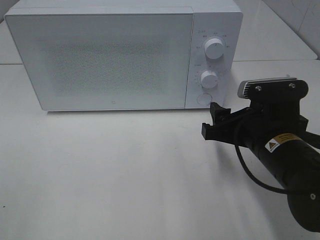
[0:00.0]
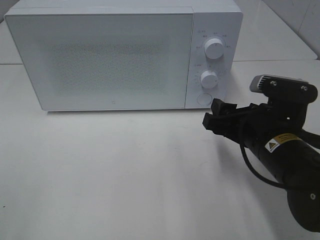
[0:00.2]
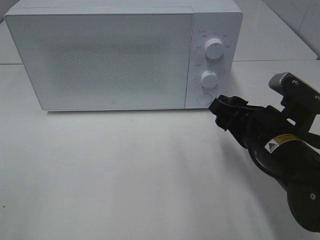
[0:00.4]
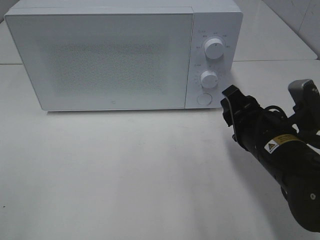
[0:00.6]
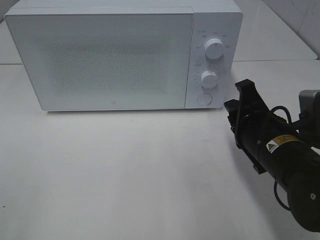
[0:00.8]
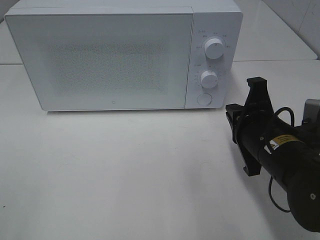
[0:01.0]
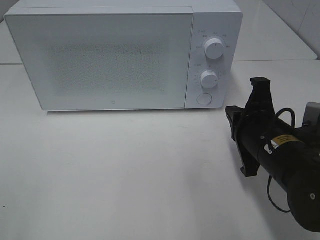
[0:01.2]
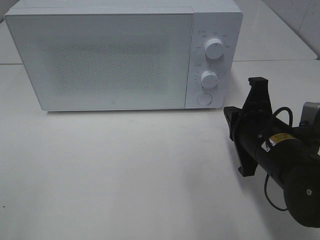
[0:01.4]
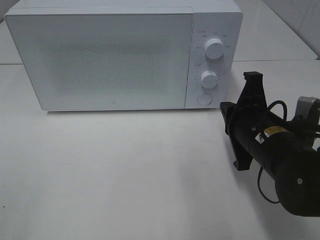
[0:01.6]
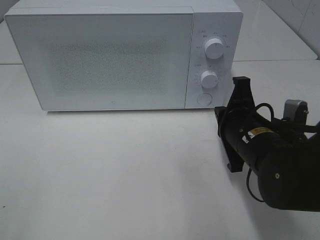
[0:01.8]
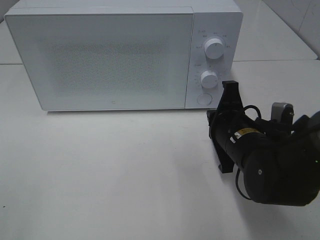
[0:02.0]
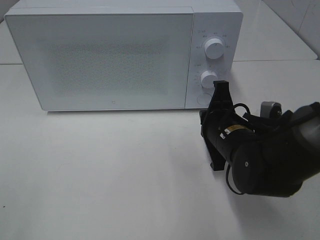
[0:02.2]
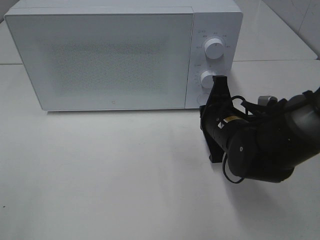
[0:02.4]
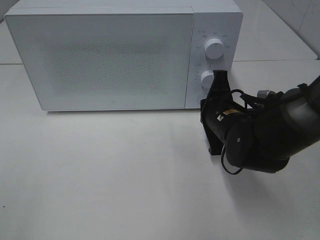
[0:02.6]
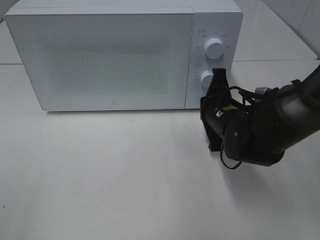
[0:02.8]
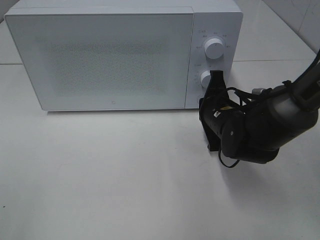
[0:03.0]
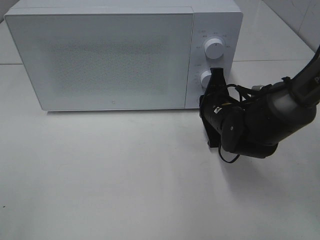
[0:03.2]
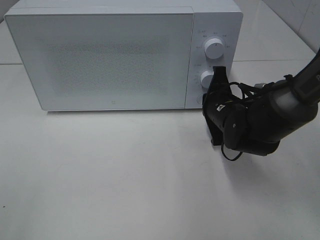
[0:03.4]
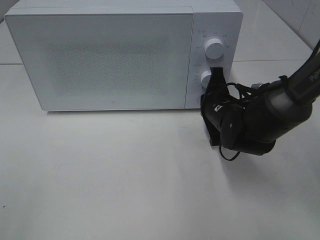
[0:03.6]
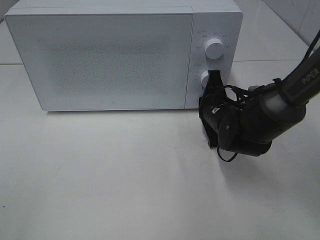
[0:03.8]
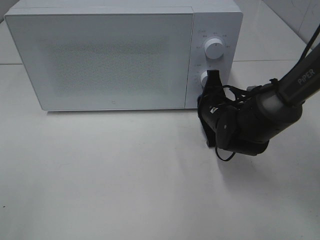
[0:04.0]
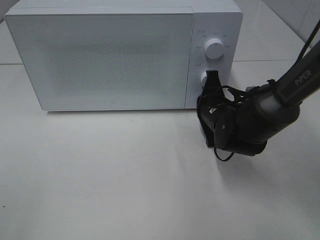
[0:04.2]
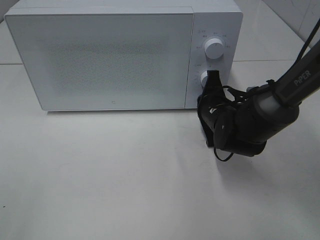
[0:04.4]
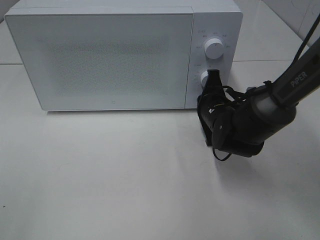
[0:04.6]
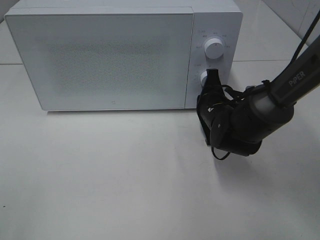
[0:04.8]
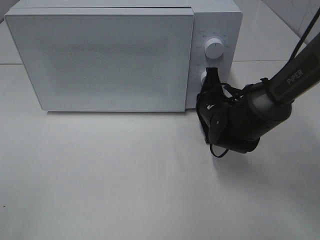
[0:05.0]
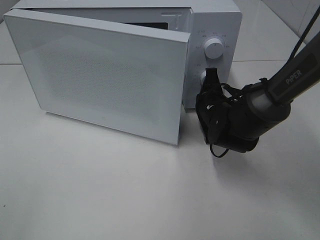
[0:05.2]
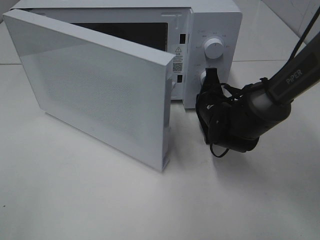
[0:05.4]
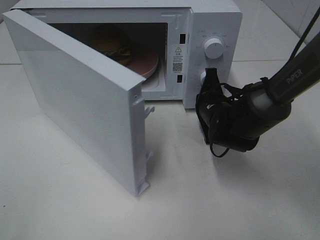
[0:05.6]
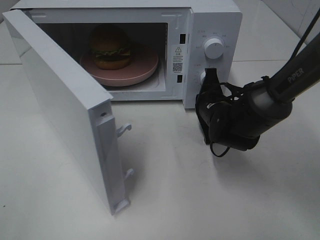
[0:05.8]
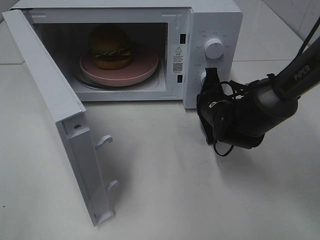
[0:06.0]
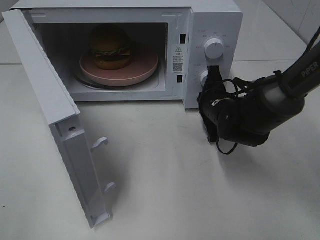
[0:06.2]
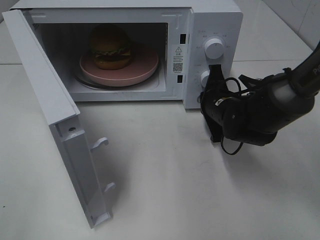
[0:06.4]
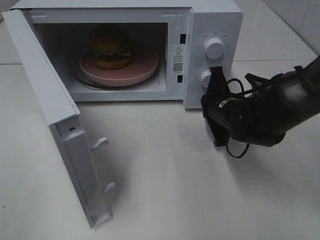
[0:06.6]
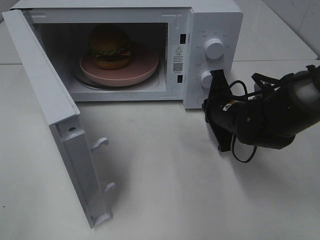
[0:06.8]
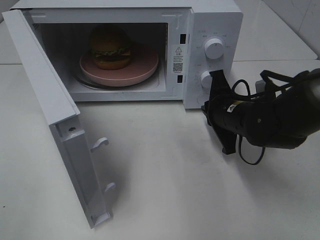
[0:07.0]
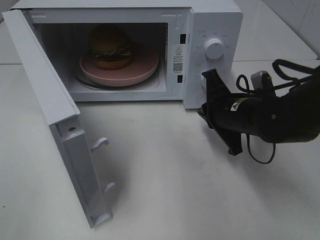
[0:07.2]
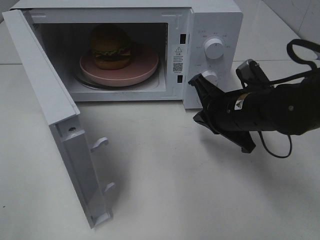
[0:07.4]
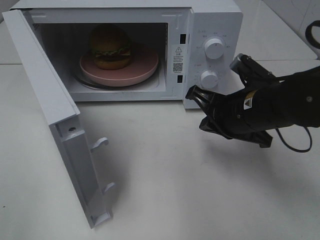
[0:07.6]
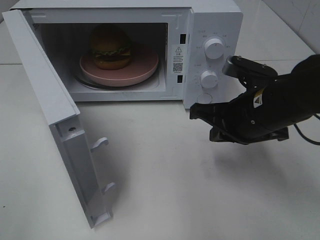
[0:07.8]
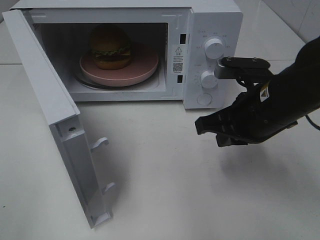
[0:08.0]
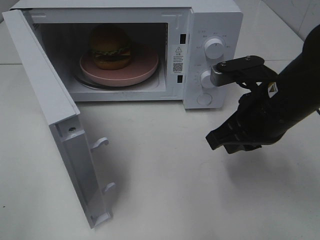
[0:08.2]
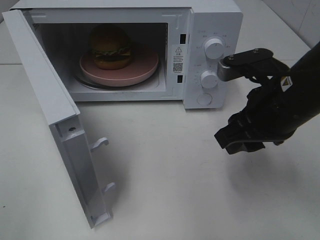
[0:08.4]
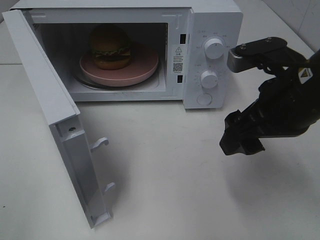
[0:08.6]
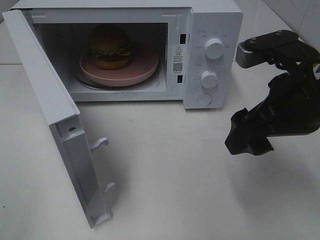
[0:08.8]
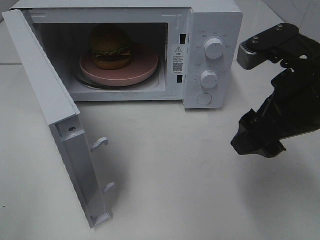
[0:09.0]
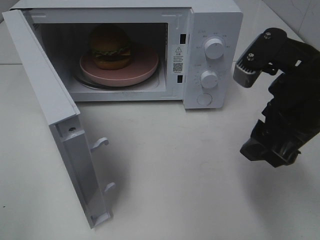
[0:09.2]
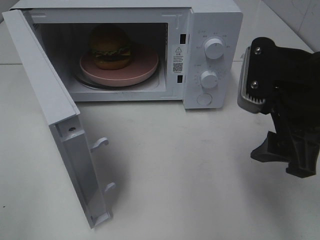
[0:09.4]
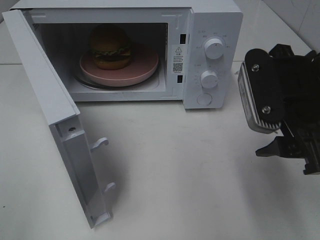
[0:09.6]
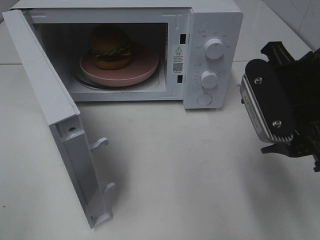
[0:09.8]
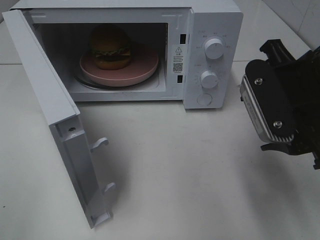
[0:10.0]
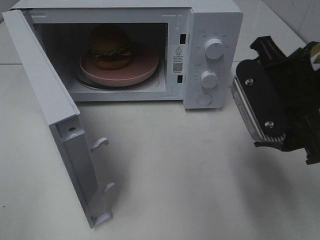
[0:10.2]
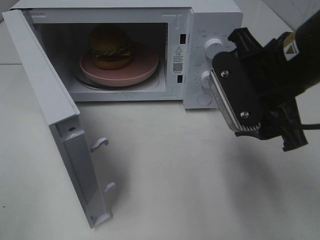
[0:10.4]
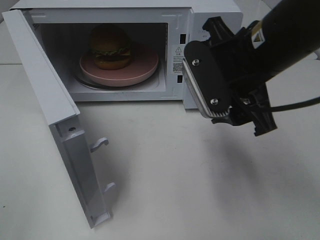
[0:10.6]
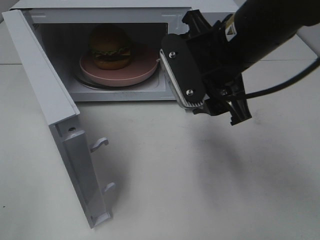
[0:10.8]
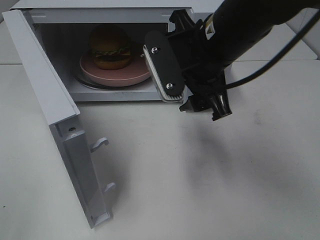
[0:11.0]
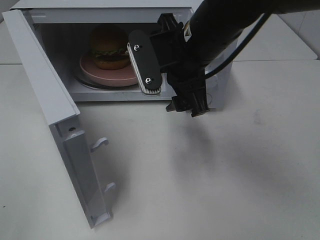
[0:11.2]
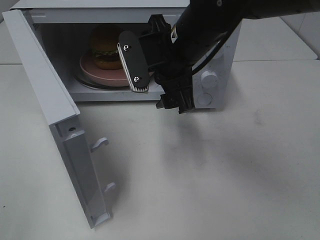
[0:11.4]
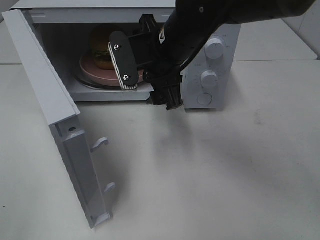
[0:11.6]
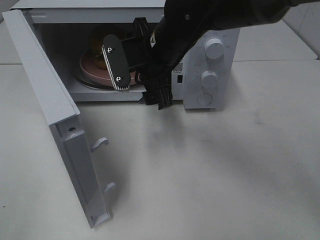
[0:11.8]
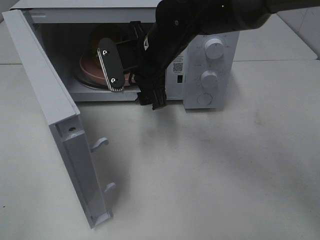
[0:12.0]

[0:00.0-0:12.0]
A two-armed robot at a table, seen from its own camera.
Task of the whole recording: Heat the burger.
Step, 0:00.0 to 0:06.8: Right hand: press the switch.
0:00.0 to 0:01.6: The right gripper closes up.
0:01.6 to 0:03.0: The right gripper travels forward by roughly 10 cm.
0:03.0 to 0:04.4: The grippers move only a little.
0:06.0 to 0:07.6: The right gripper heads backward and upward, covering about 10 cm.
0:07.6 to 0:09.0: The right gripper goes approximately 10 cm upward and backward, and opens up.
0:10.4 to 0:12.0: The right gripper shifts roughly 20 cm to the left, forward and downward.

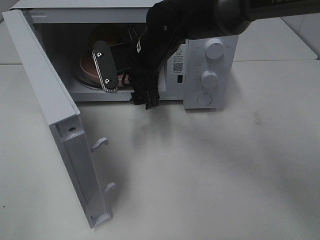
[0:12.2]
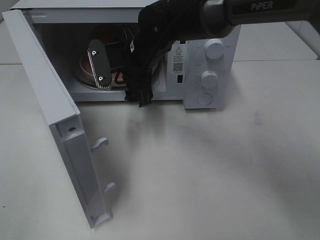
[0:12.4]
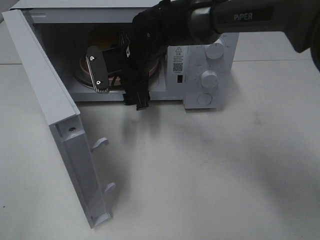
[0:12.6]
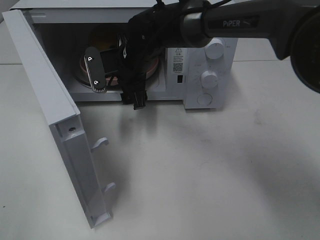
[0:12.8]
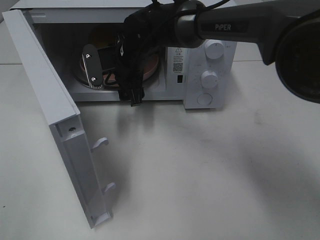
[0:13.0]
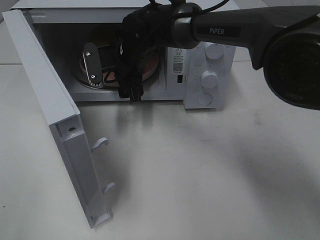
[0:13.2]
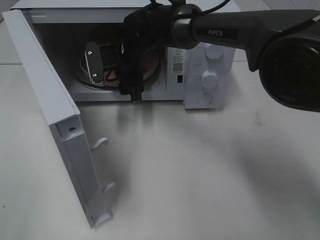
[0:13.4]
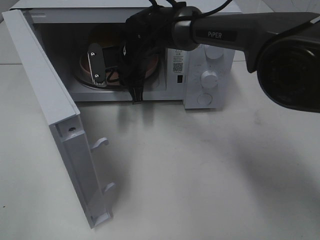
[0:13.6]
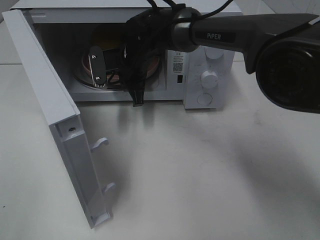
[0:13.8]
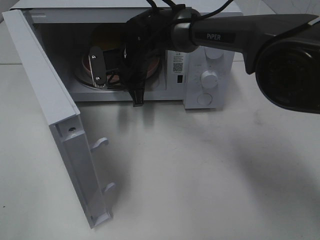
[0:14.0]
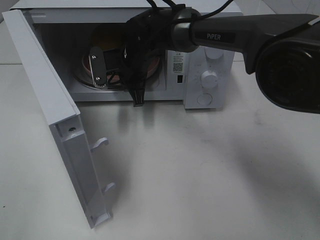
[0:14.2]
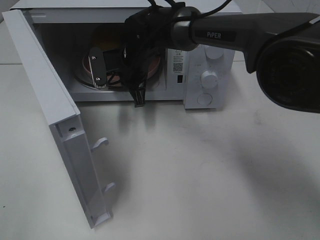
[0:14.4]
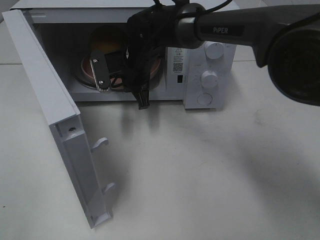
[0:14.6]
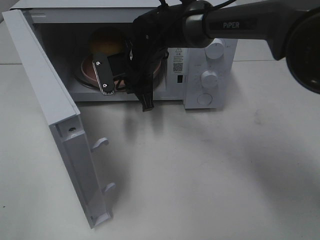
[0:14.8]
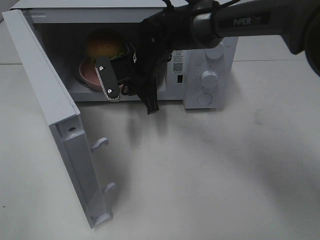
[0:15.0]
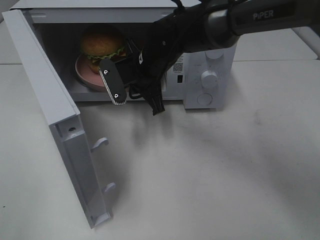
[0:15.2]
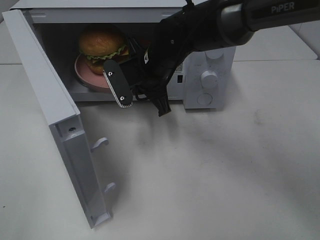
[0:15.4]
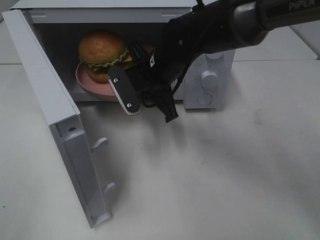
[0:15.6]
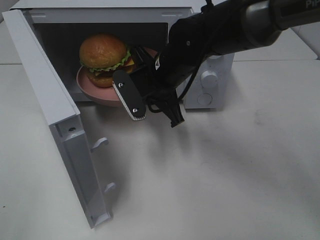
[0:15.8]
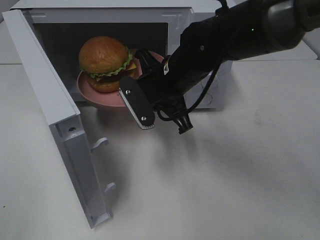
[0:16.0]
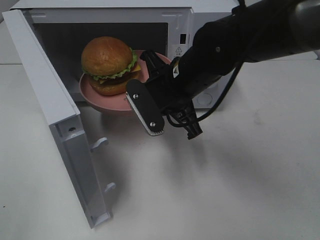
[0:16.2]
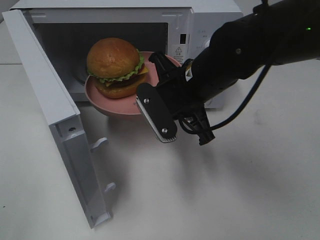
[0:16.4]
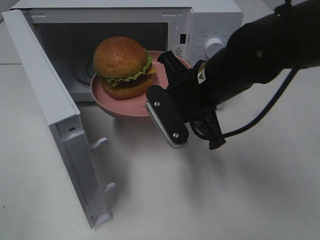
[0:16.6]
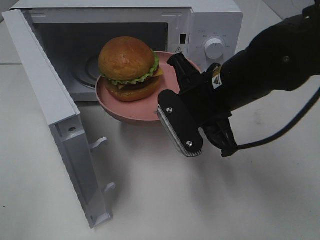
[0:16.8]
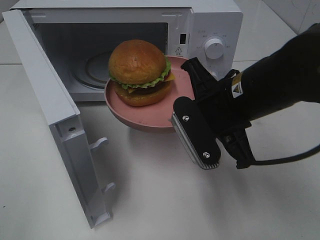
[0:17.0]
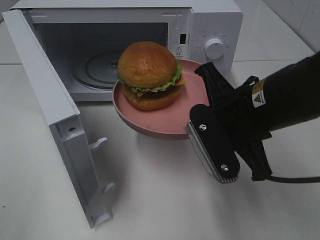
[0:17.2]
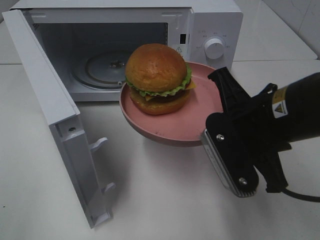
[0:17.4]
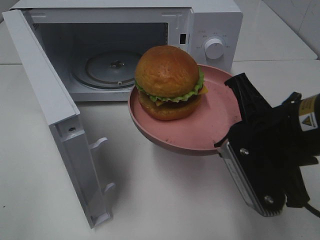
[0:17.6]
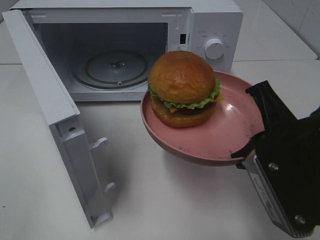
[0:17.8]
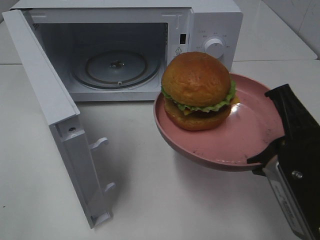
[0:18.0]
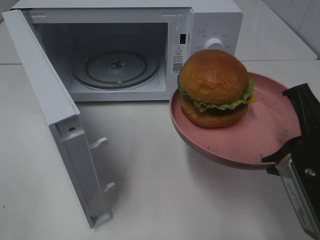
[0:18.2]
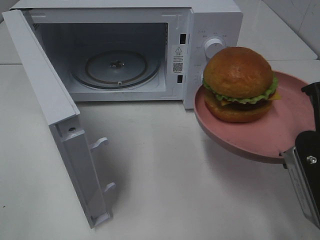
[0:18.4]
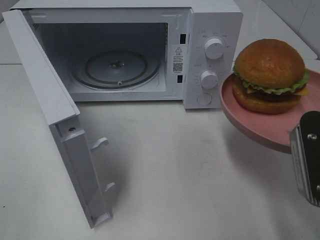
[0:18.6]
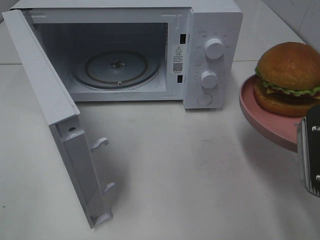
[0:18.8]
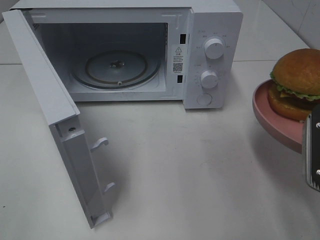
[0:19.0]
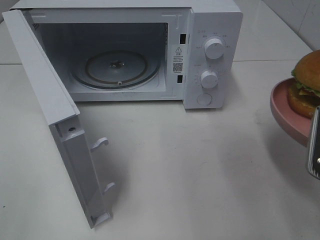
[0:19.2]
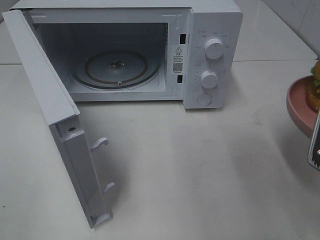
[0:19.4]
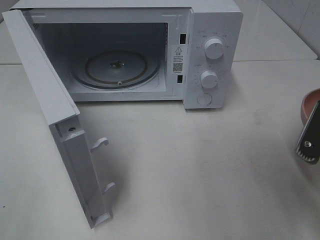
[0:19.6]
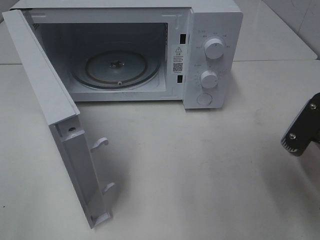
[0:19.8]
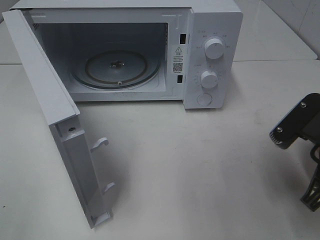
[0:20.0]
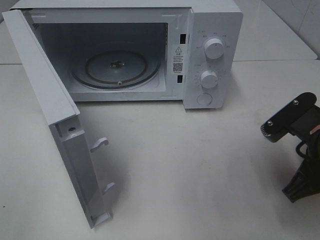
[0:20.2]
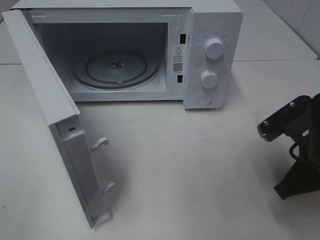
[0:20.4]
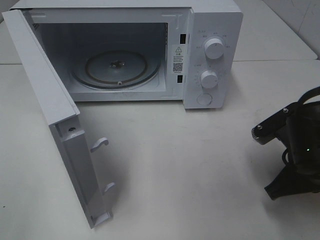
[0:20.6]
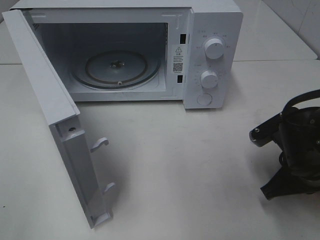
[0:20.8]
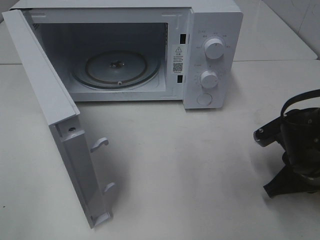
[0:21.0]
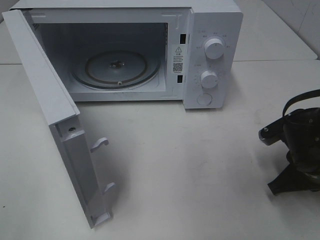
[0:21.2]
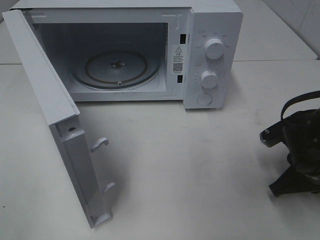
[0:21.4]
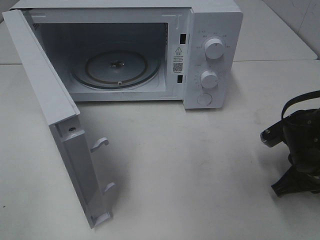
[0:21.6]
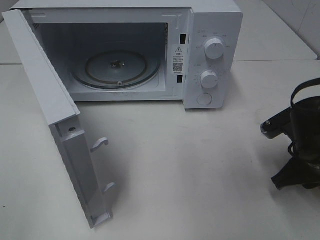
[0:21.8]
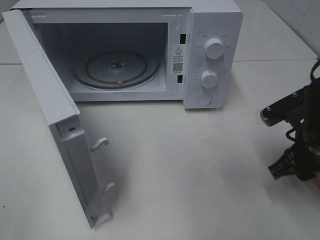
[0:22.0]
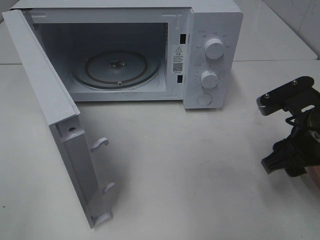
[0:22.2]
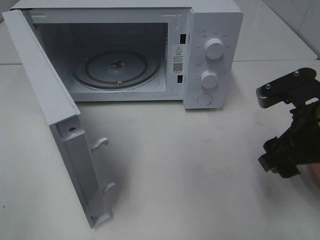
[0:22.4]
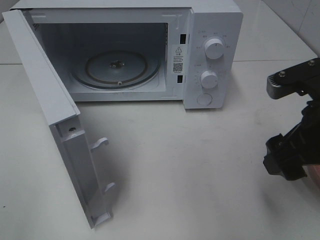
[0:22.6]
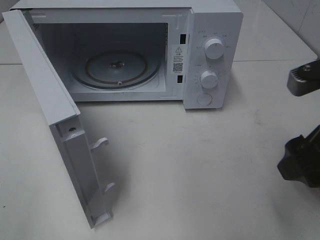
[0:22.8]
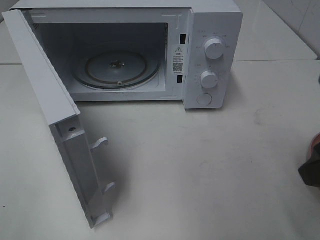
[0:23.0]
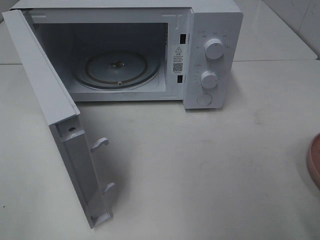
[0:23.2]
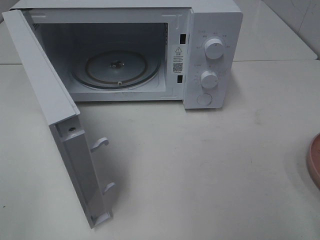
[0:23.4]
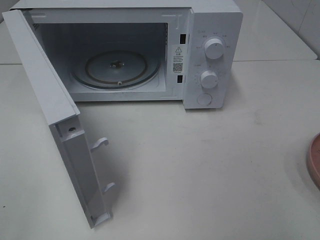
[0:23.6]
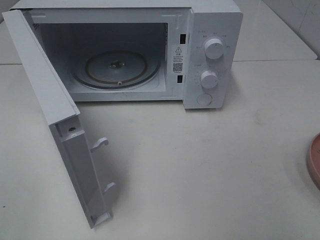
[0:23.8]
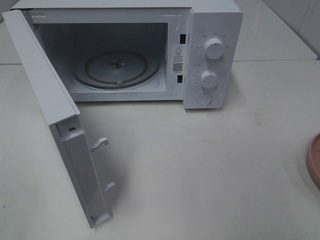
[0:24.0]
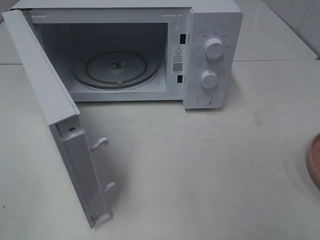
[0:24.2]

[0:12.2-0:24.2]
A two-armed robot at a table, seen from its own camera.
Task of the whole recording: Heat the burger.
Step, 0:12.2 to 0:14.4: Right hand: grab the plate with the hamburger.
Step, 0:14.6 to 0:21.8: Right hand: place the plate on the table.
0:12.2 to 0:13.8: The right gripper is displaced forward by approximately 5 cm, and closes up.
0:13.8 to 0:15.2: The right gripper goes roughly 5 cm backward.
0:15.2 to 0:16.6: The right gripper shifts approximately 15 cm backward and to the right.
0:16.6 to 0:18.2: The right gripper shifts about 20 cm backward and to the right.
0:18.2 to 0:19.8: The right gripper changes place by some 5 cm.
0:19.8 to 0:21.2: The right gripper travels downward and forward by some 10 cm.
0:21.2 to 0:22.6: The right gripper travels upward by some 15 cm, and opens.
0:22.6 to 0:24.2: The right gripper goes approximately 20 cm backward and to the right.
